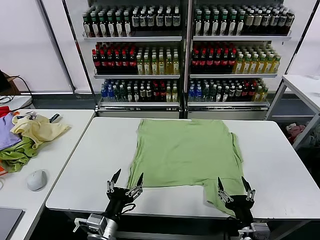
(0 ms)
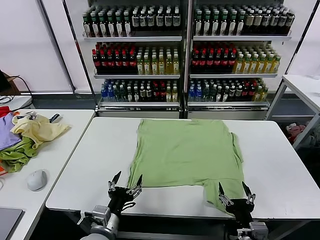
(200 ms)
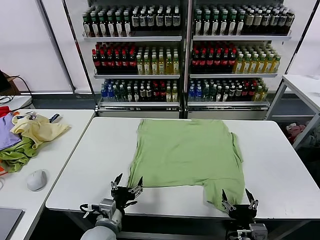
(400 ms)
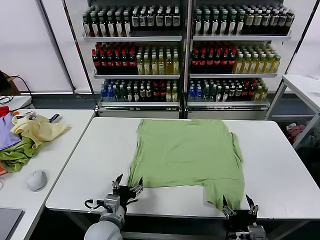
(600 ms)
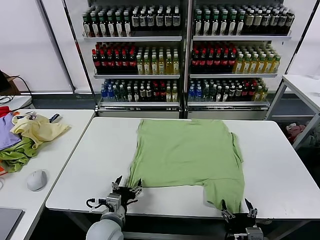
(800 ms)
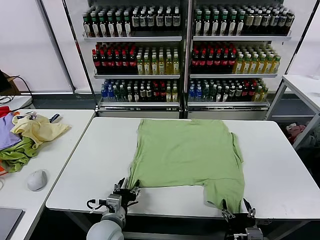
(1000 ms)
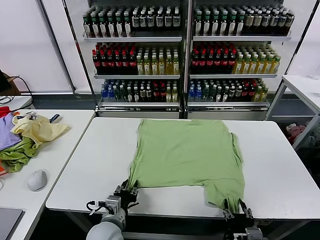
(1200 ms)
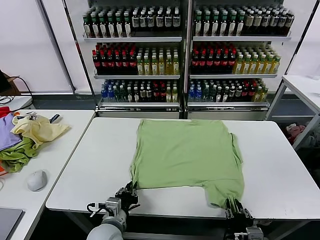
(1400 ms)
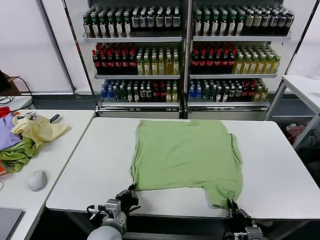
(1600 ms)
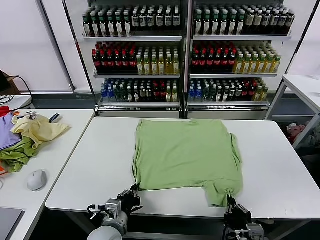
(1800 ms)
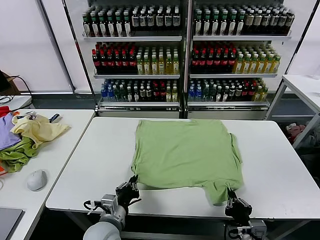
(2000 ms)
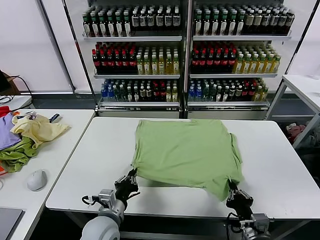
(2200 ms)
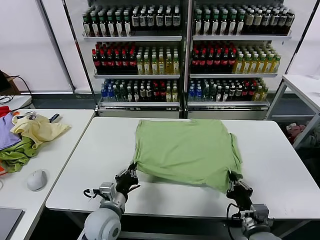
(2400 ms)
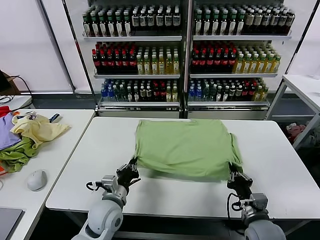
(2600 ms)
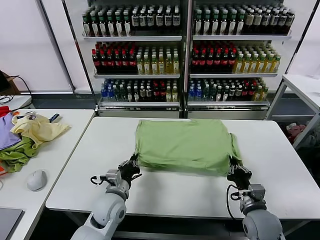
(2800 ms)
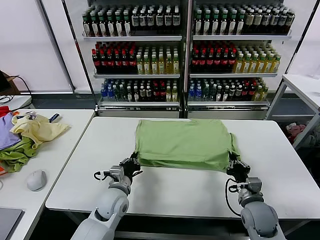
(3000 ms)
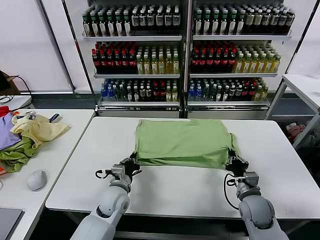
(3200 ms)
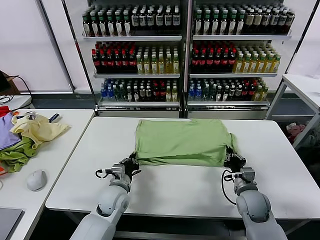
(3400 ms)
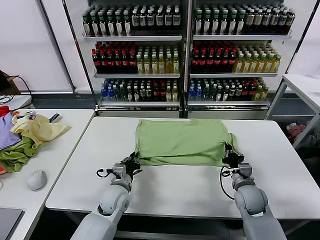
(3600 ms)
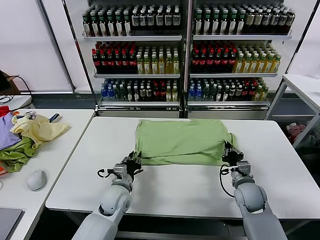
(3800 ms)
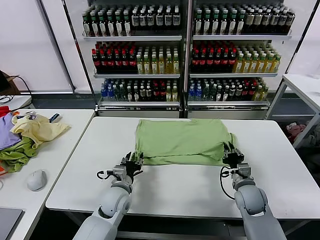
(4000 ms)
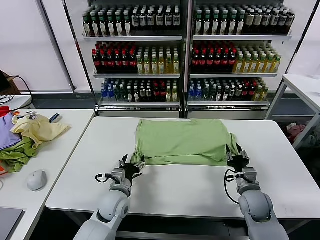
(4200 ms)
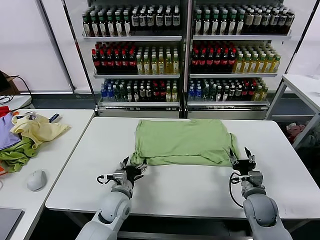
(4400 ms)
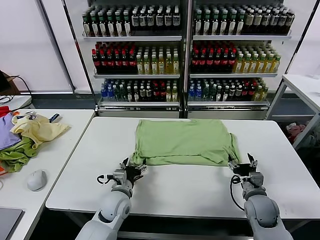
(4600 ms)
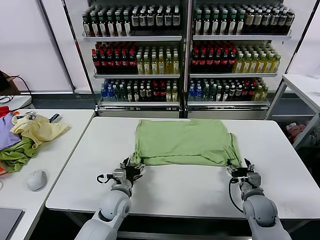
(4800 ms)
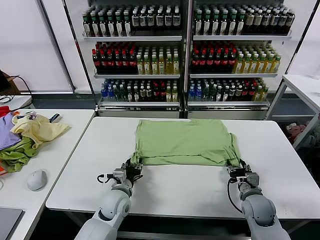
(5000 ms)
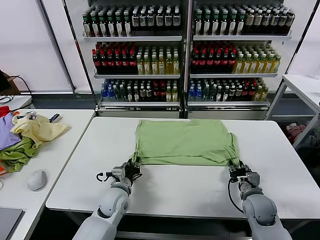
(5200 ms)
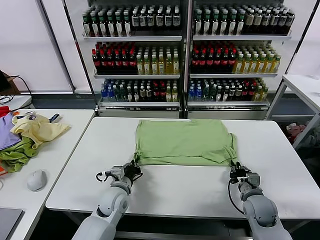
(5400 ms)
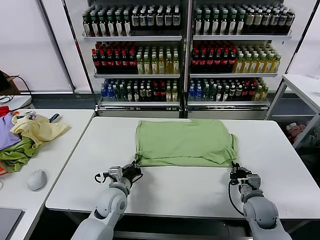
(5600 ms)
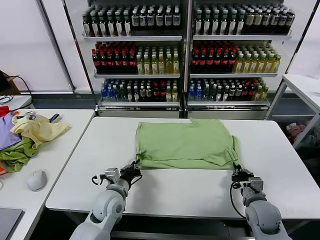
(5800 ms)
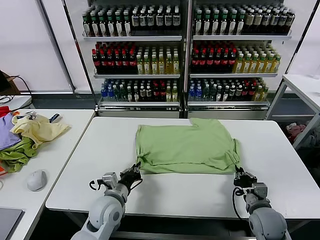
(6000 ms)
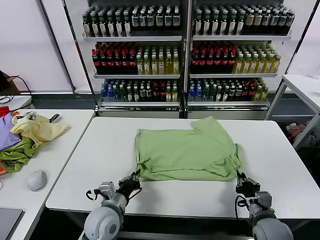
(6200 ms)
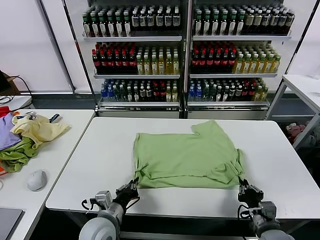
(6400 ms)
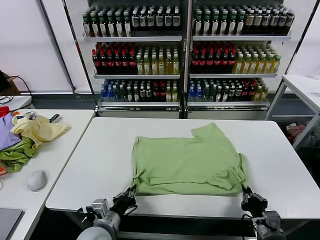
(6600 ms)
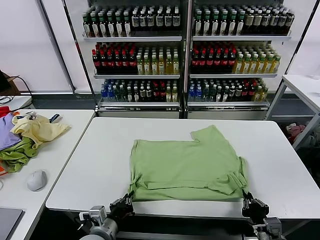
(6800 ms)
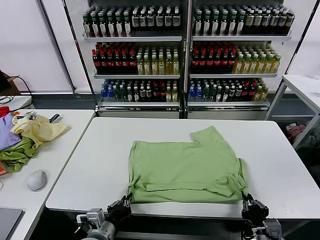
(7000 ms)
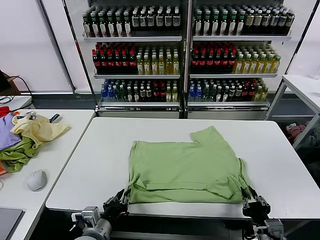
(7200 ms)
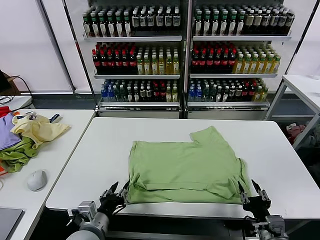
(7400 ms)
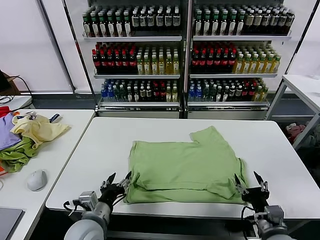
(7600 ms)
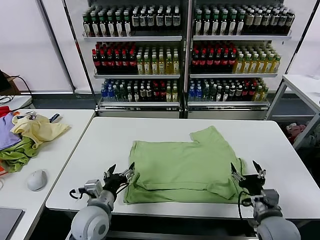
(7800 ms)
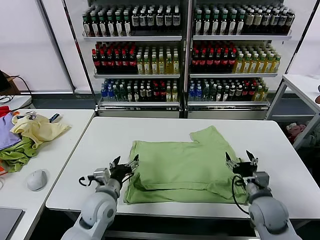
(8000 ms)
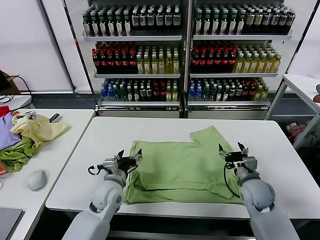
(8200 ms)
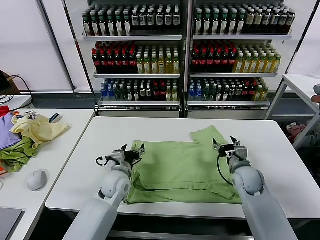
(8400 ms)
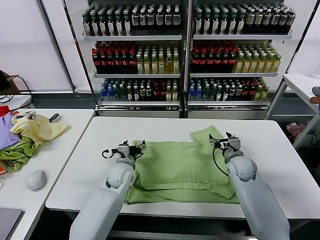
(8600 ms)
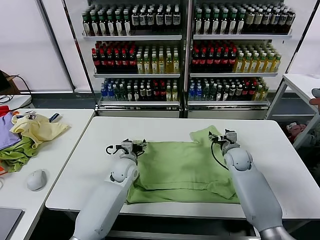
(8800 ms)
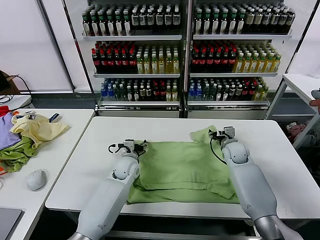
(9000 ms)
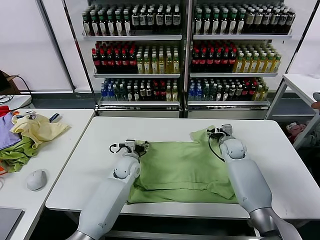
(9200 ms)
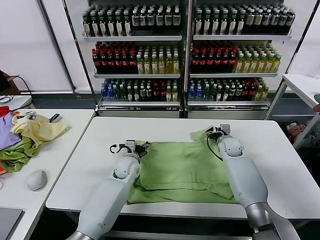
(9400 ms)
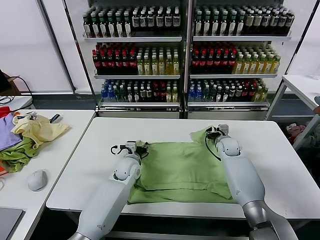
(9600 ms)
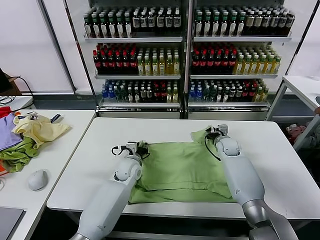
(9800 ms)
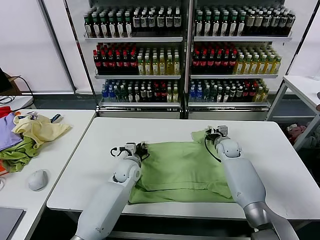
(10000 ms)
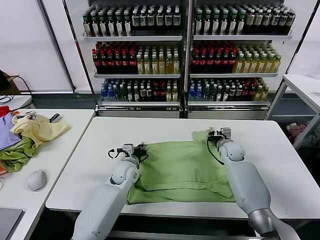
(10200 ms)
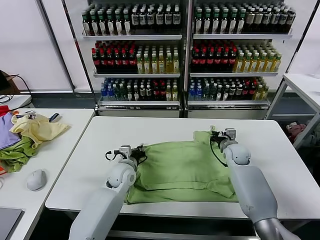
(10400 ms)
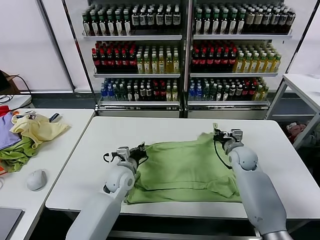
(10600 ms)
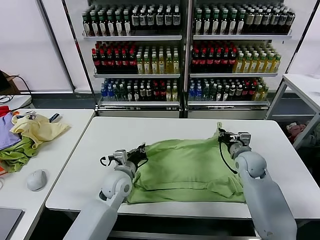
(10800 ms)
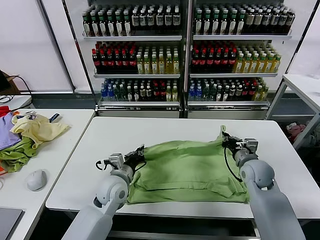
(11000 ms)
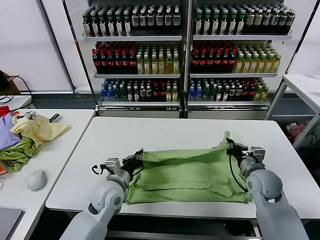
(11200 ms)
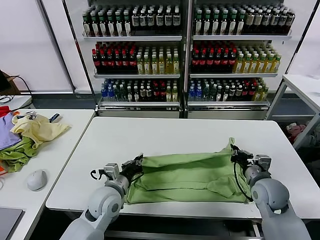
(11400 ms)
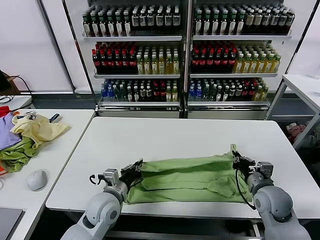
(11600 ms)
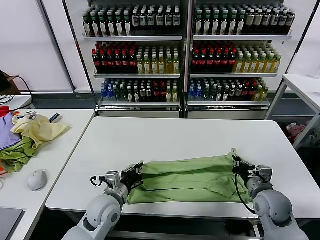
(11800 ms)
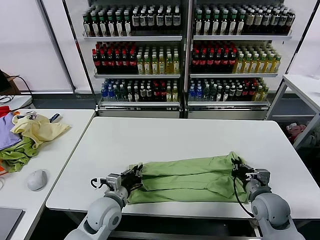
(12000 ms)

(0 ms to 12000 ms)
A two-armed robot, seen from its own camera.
Task of the whole recording: fold and organize the clothes.
Step, 0 ms - 1600 ms: use both grippers simultaneously to clamp the lower edge of the clothing fabric.
Step, 2000 ms - 4200 ms: use both grippers to drag the lower edge of the fabric forward and fold it over the upper edge.
Step, 4400 ms - 7200 ms: Drag the clothes downward with both gripper.
Step, 7400 ms - 10000 ms: use both grippers simultaneously to clamp the upper edge of the clothing fabric.
1600 ms - 3000 ms: Both grippers travel together forward, approximately 15 cm.
3000 ms - 4400 ms: The right gripper opens its fingers. Meanwhile the left gripper opens.
4400 ms - 6000 ms: The left gripper closes its fingers. Meanwhile the right gripper travels backward by about 5 cm, and closes up.
6000 ms - 7600 ms: The two grippers go some 5 cm backward. The left gripper opens up. The right gripper opens.
7600 ms - 9000 ms: Both grippers move forward, roughly 30 cm.
9000 ms - 10400 ms: The right gripper closes. Meanwhile the left gripper closes its fingers.
10400 ms - 12000 ms: The two grippers go roughly 20 cm backward.

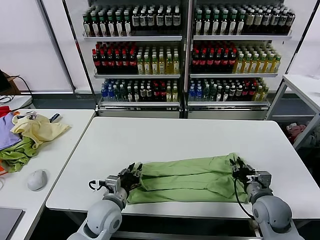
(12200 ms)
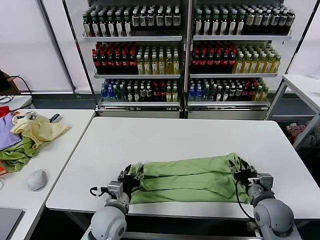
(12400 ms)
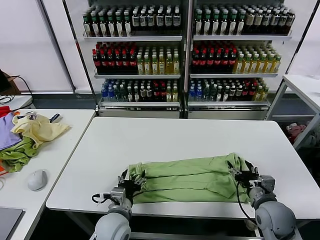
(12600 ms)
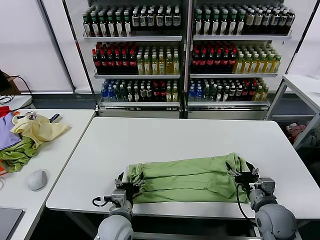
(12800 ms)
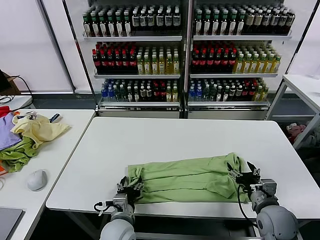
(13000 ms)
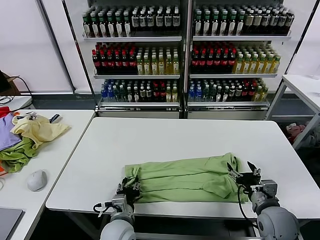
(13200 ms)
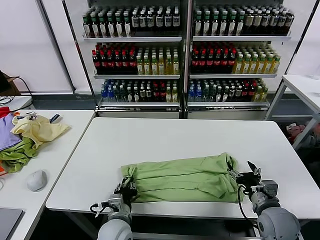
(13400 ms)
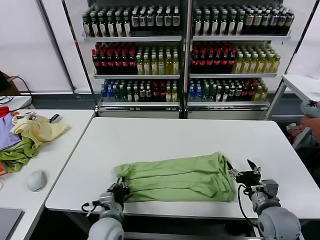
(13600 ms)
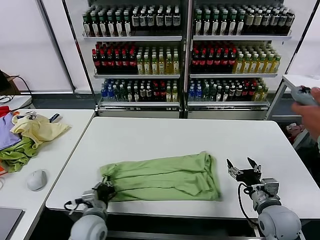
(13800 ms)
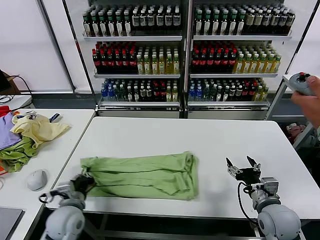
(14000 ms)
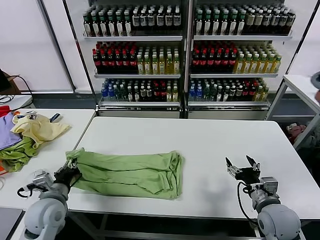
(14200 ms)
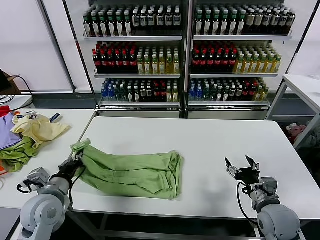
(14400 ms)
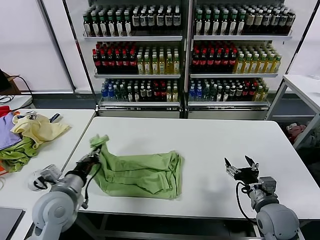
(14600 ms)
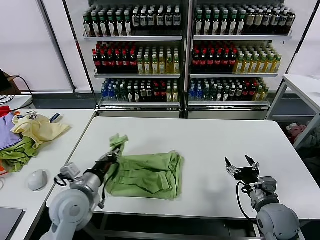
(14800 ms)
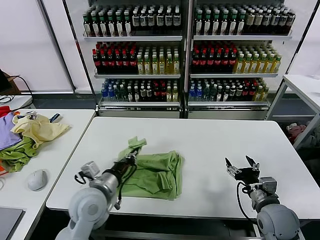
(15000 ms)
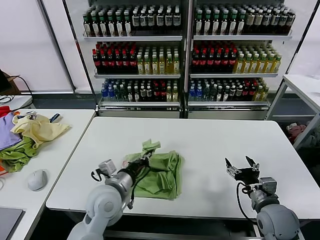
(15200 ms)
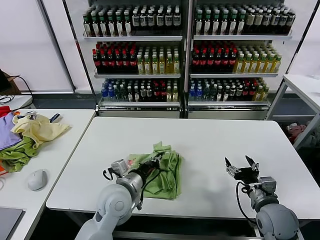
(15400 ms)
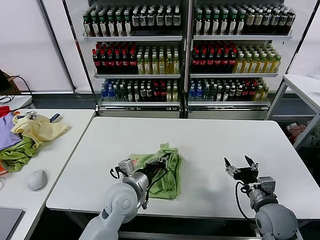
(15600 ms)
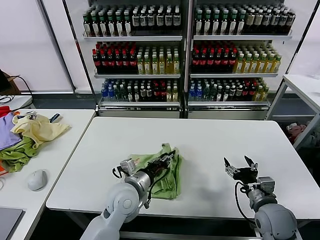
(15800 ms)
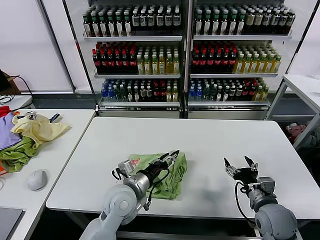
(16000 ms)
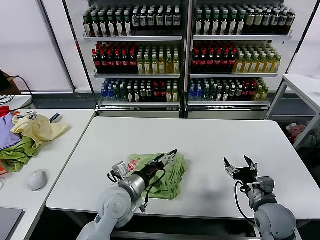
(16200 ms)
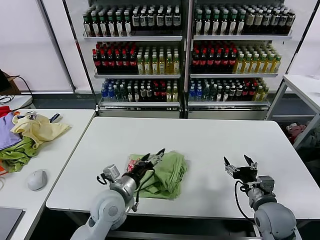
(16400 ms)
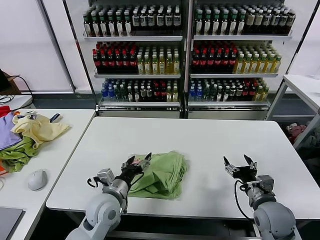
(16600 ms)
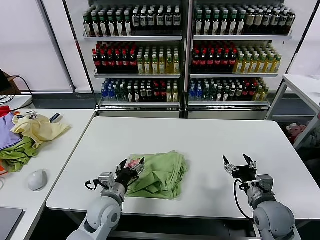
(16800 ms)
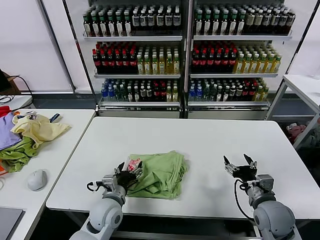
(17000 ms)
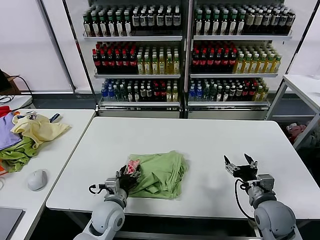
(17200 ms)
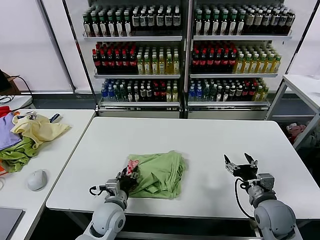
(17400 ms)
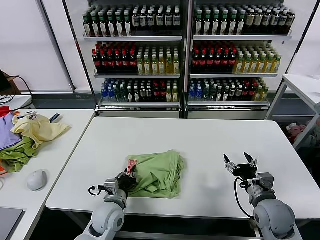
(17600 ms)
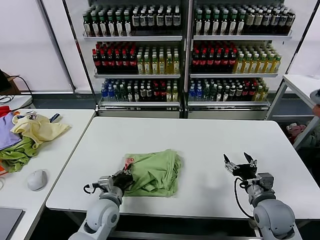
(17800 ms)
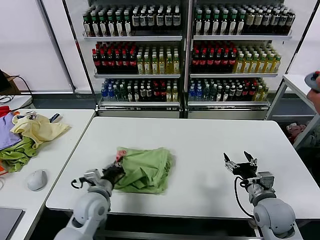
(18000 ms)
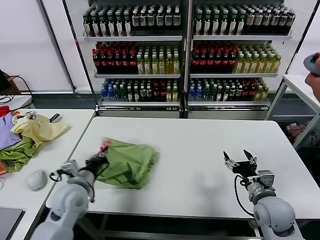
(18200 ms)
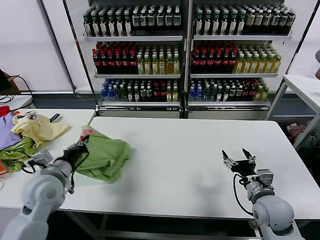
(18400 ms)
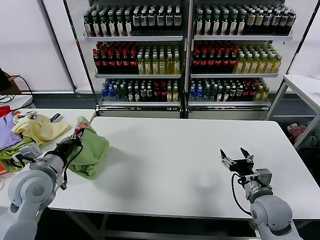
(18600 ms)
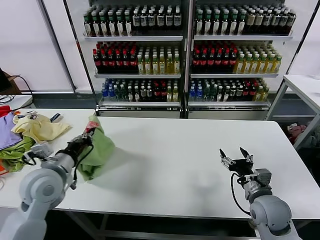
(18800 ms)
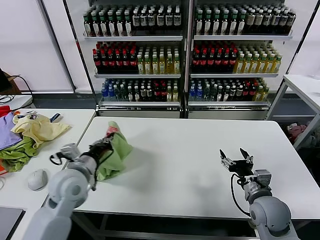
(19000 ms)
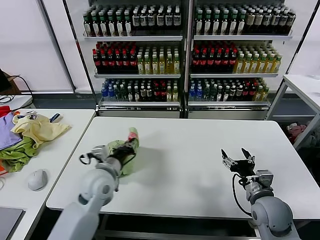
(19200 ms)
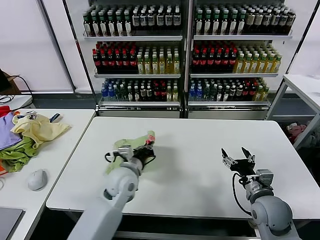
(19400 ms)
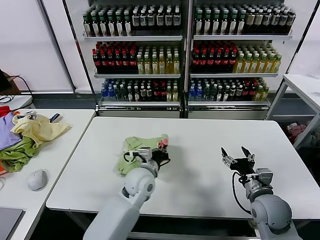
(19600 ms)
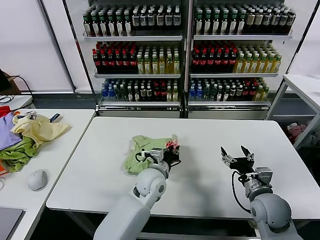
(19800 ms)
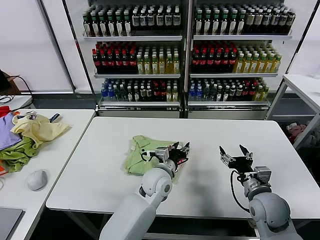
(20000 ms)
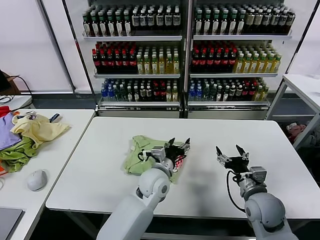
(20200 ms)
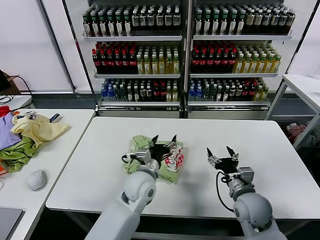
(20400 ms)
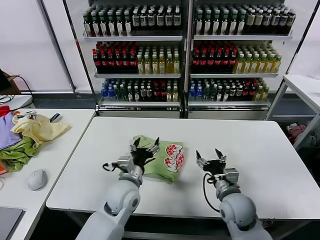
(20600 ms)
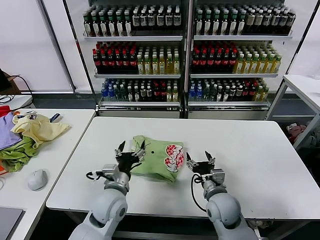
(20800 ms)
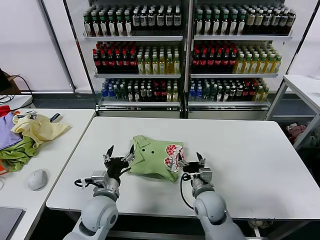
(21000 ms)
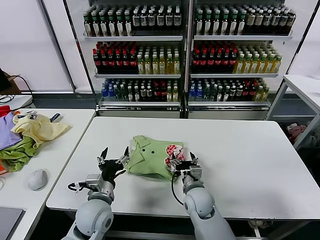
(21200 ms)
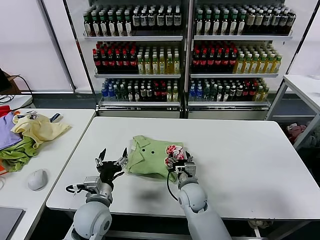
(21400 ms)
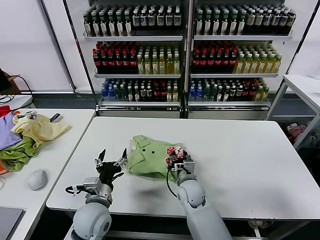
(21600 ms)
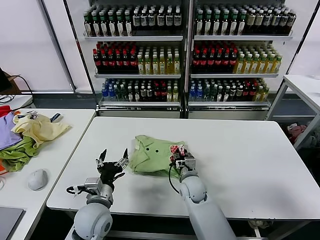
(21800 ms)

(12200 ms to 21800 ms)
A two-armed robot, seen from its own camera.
Task of the whole recording: fold and organize the clothes.
Step, 12600 ms - 13400 ms: use the left gripper to clamp the left edge of the fabric.
Step, 13600 ms - 16000 ms: use the left gripper to drag the left edge of the fabric to the left and folds it over the right edge.
Step, 16200 ms - 19800 ms: Flip the folded clothes over with left gripper.
12200 ms - 13800 ms: The right gripper opens its fingers. The left gripper moves roughly 5 cm, and opens, then closes once more.
13800 ms - 15400 ms: The left gripper travels upward, to the right and forward by about 15 cm.
15400 ms - 17000 ms: The left gripper is displaced downward by roughly 10 cm, and opens.
17000 ms - 18600 ms: The left gripper travels to the left and upward by about 20 cm, and closes up.
18600 ms - 20200 ms: The left gripper goes approximately 30 cm to the right, and opens.
20200 ms - 21800 ms: The left gripper goes some 20 cm to the left and backward. Meanwhile the right gripper shifts about 25 cm to the left, forward and downward, and closes its fingers.
